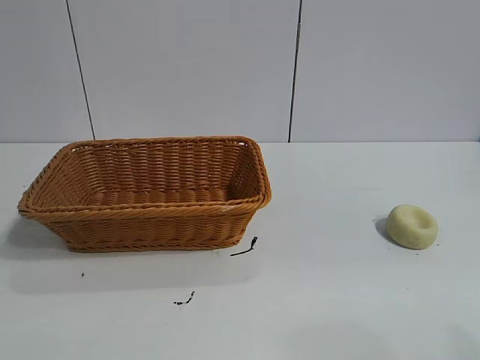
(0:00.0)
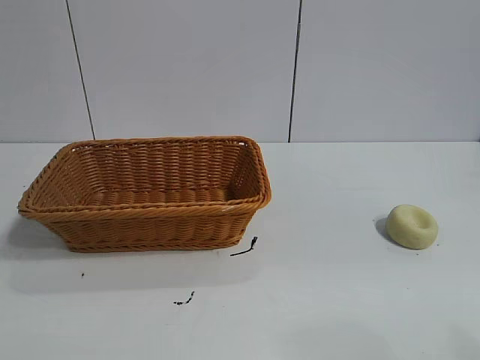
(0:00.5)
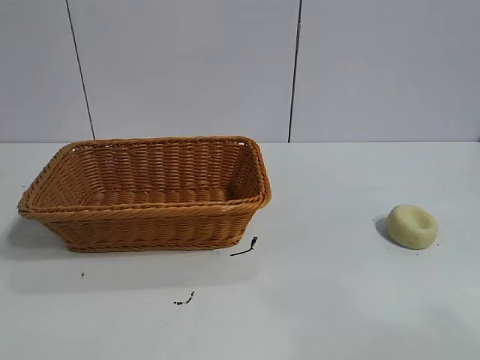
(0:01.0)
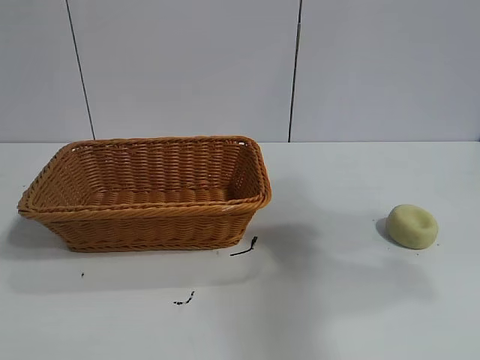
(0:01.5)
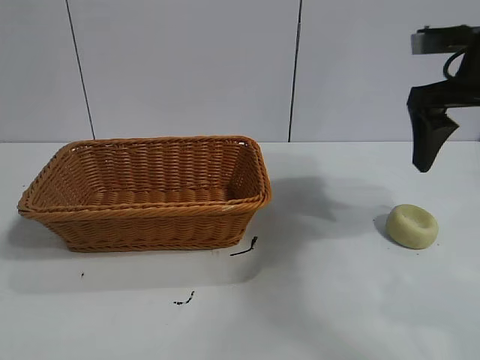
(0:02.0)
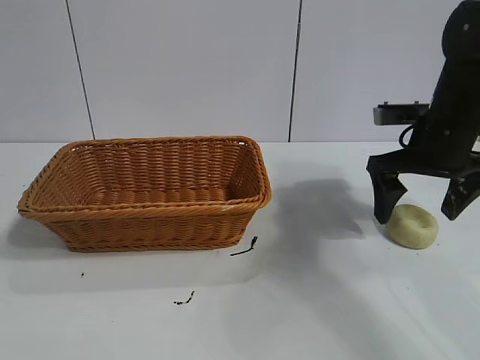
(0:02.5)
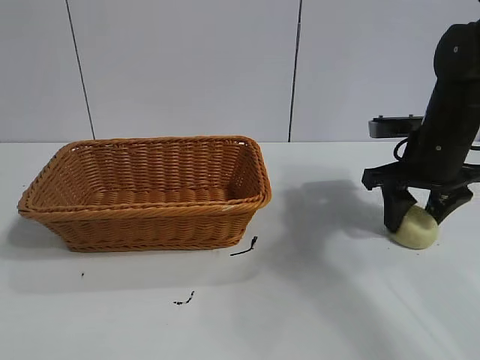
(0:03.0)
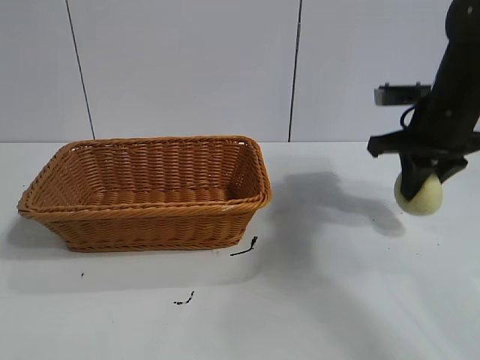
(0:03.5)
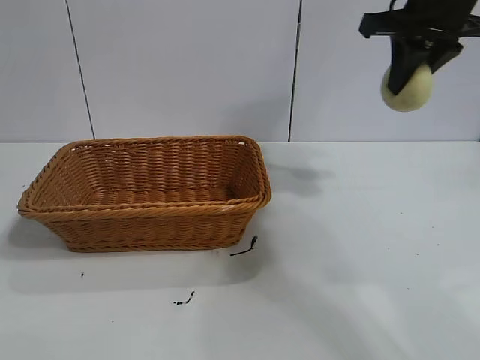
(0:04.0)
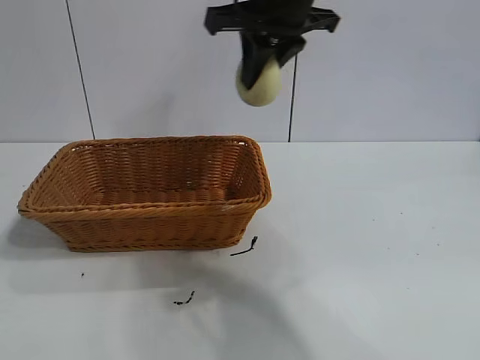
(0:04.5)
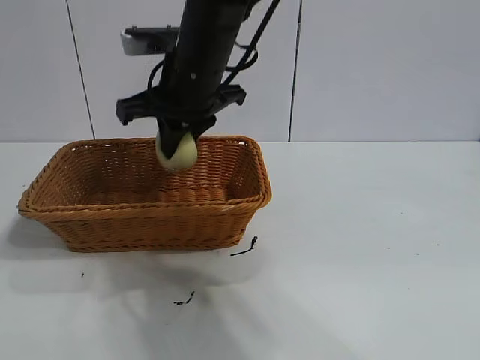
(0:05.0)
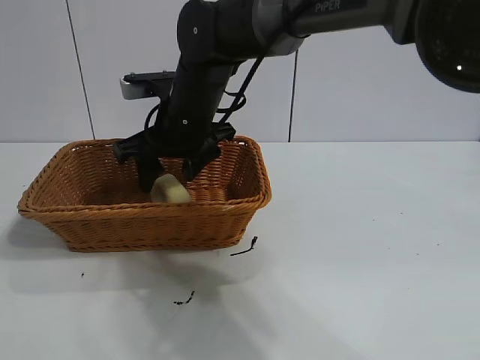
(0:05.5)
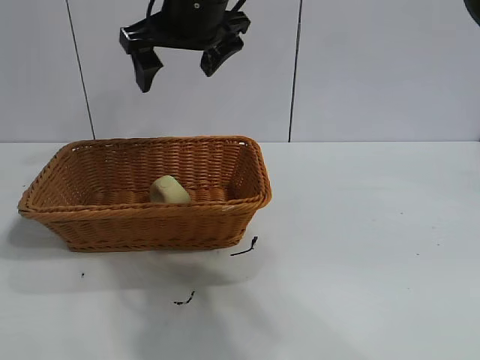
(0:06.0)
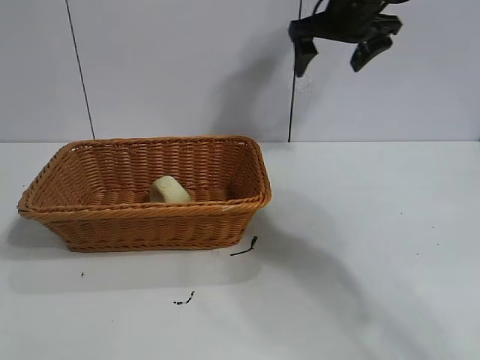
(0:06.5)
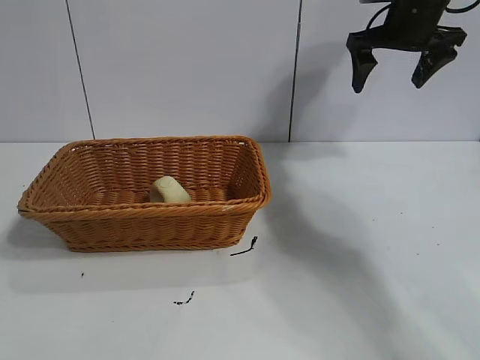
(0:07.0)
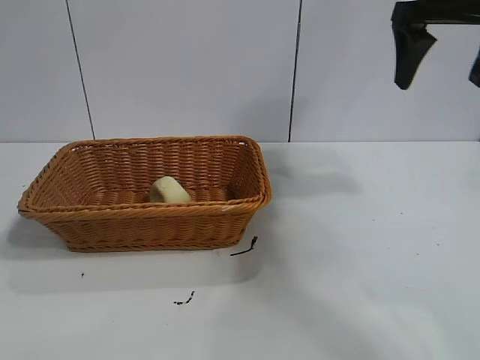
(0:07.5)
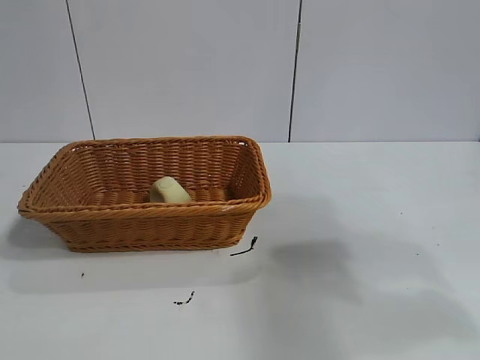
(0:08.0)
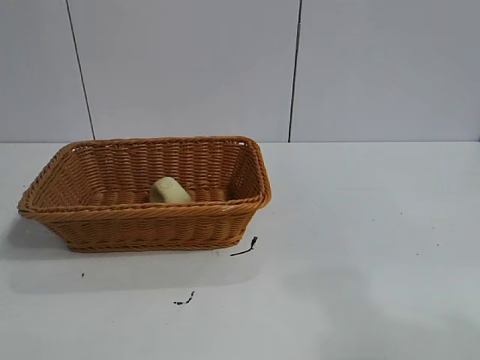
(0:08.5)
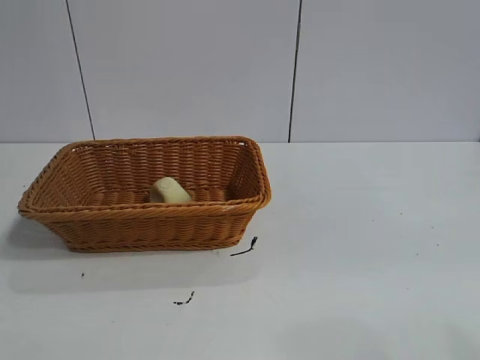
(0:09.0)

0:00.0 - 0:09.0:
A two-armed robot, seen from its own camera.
Task of the whole recording: pick up the egg yolk pastry and put it into the basket.
Step, 0:01.0 - 0:03.0: Grasp egg yolk pastry with right gripper.
Step, 0:03.5 - 0:05.5: Place the egg yolk pastry in the basket with right gripper.
